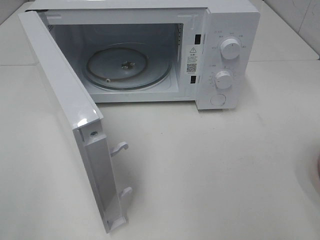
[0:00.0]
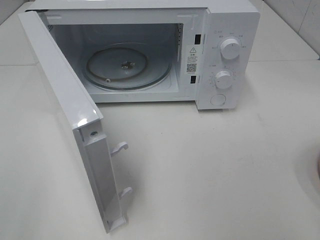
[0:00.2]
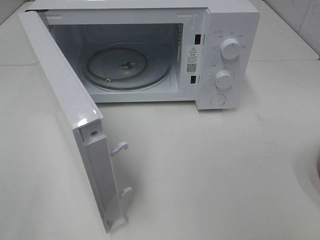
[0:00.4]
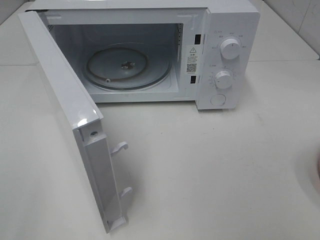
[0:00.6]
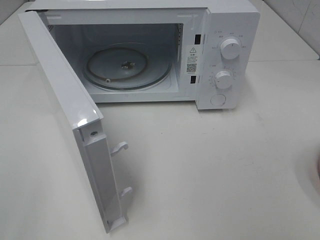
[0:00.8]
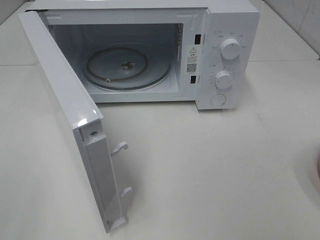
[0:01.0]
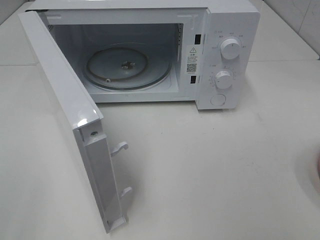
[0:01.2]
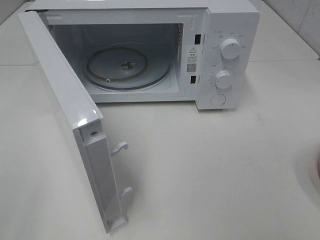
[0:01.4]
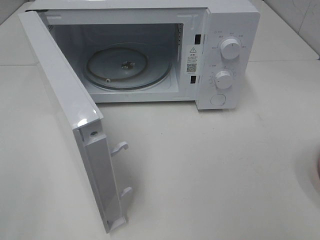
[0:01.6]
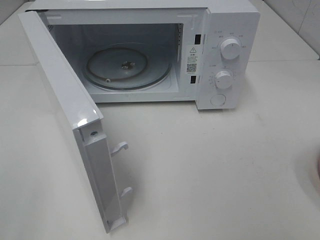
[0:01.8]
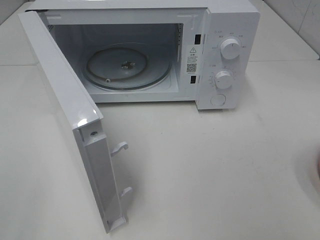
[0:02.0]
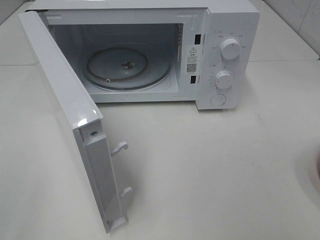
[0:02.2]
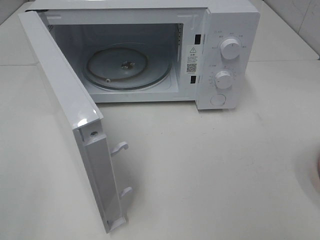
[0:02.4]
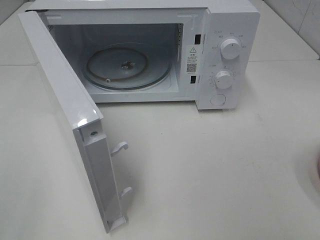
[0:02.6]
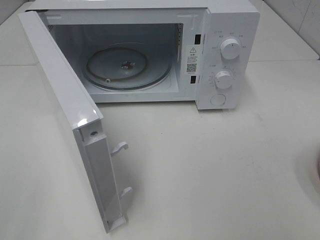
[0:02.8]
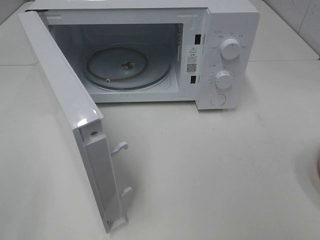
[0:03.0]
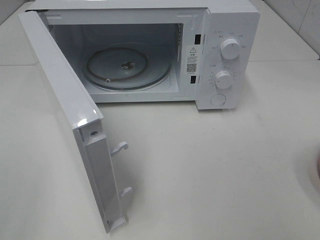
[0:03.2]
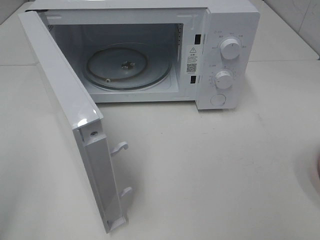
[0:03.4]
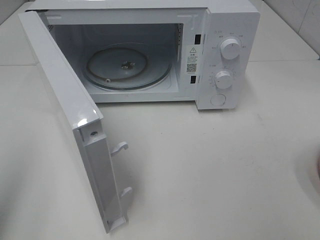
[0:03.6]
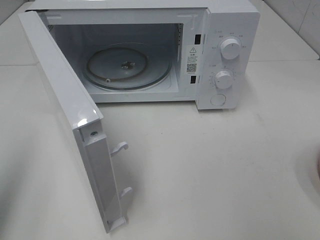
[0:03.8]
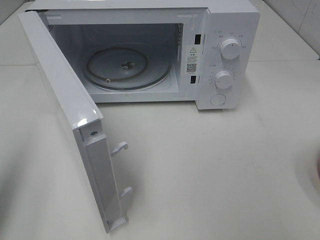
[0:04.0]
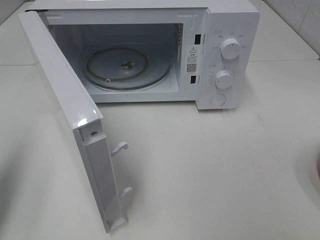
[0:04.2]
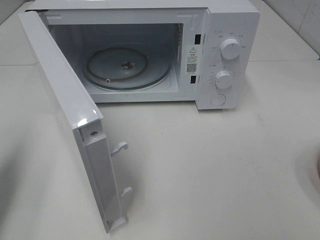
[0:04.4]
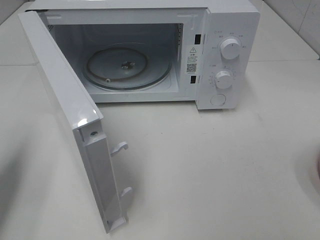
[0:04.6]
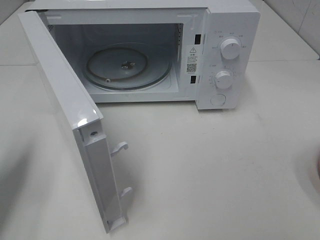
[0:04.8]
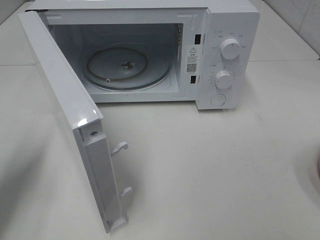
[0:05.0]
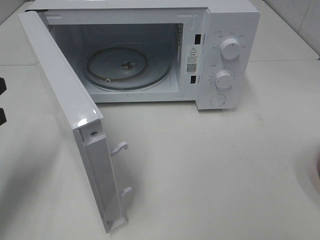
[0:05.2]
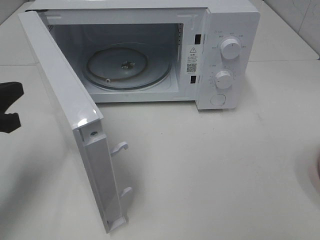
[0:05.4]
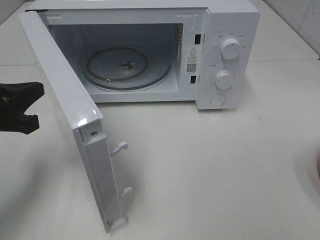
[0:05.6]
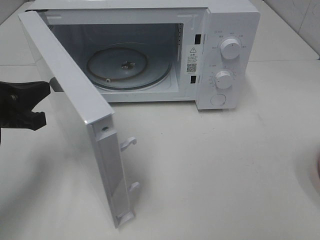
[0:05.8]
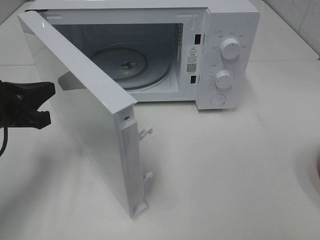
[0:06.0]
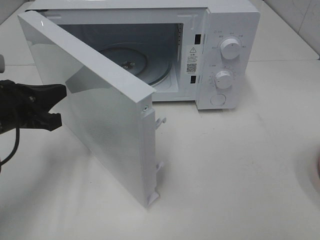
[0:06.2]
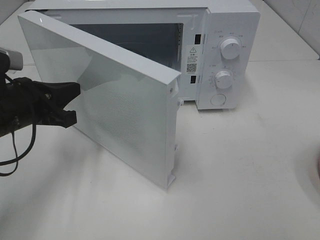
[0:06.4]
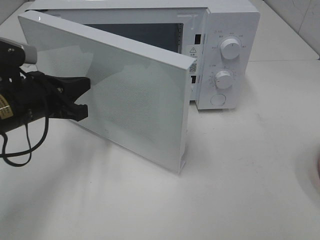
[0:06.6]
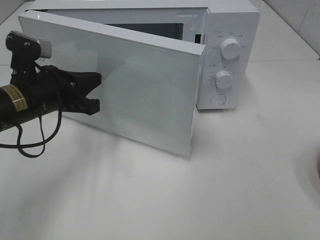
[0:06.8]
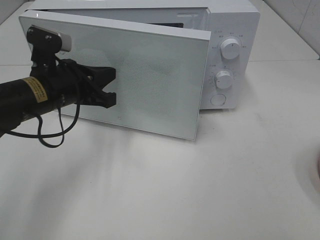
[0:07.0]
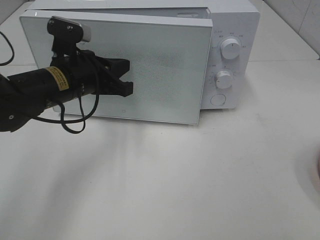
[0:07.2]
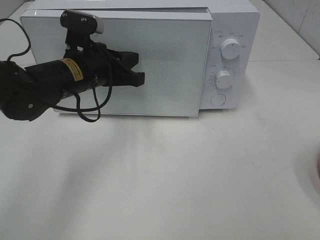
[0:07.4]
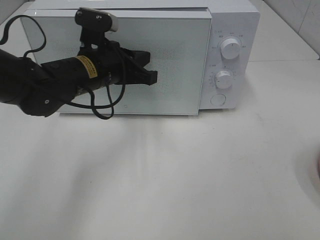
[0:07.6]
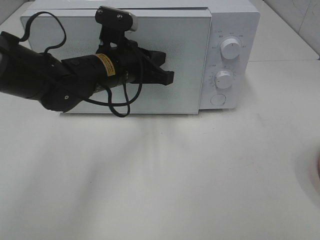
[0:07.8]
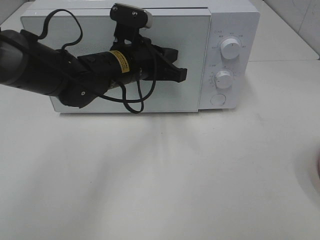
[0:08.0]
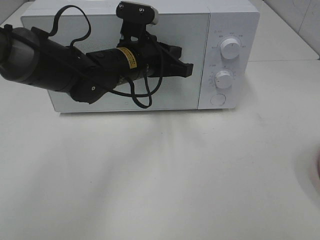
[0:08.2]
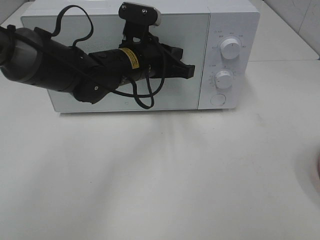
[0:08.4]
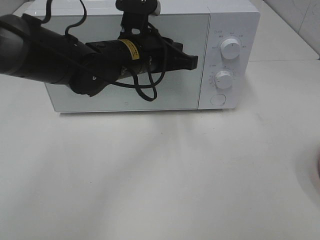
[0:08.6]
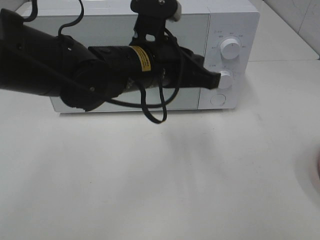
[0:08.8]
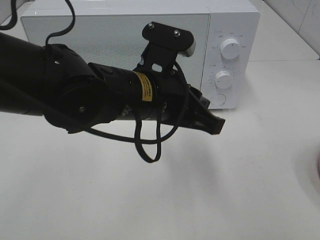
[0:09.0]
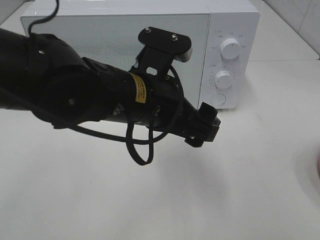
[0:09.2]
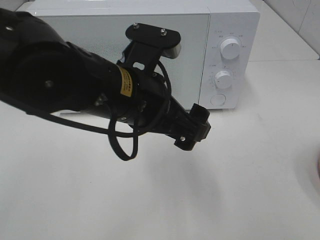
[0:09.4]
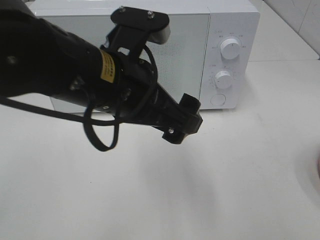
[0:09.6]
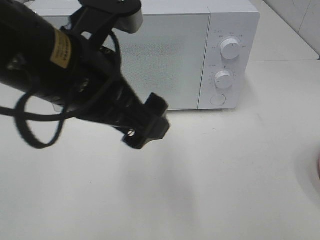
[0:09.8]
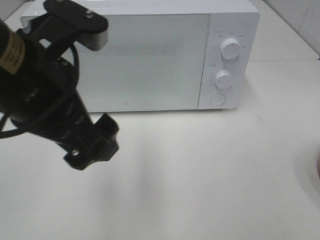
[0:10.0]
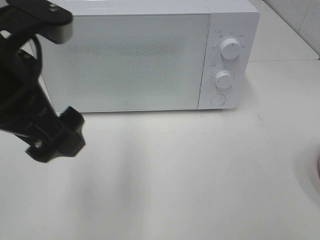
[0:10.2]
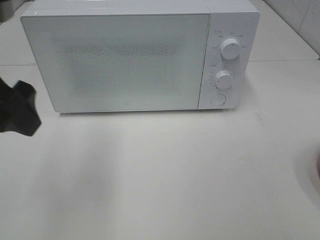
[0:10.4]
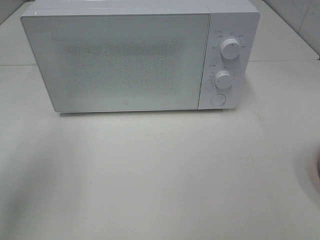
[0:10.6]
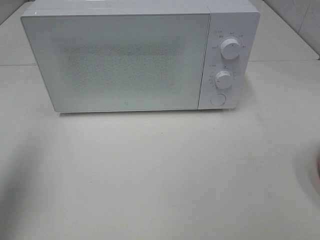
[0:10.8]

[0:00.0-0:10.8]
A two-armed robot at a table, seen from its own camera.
Task of the whole recording: Heat the burger.
Step, 0:00.0 to 0:08.4: Left hand: close the microwave door.
0:01.6 to 0:03.0: The two grippers keep their place.
0:03.0 to 0:04.6: The left gripper is displaced forward by about 20 cm, and closes.
0:04.6 to 0:06.2: The left gripper travels to the right, forward and downward by some 15 cm.
0:06.2 to 0:07.8: The left gripper goes about 20 cm to the right and forward.
0:07.8 to 0:09.2: The left gripper shifts about 10 cm backward, and opens its fingers.
0:09.2 to 0:10.8: The left gripper shifts roughly 30 cm to the left and upward.

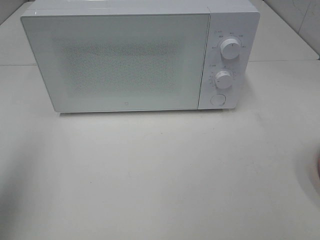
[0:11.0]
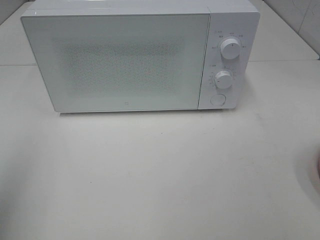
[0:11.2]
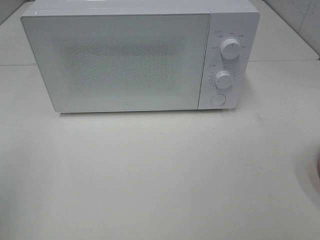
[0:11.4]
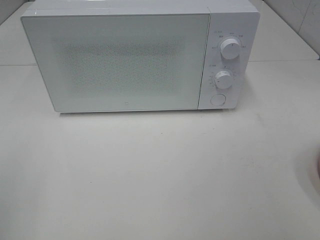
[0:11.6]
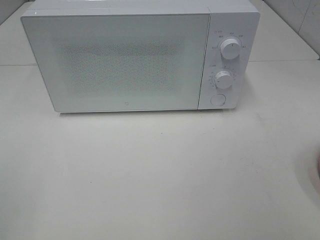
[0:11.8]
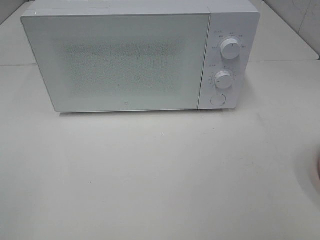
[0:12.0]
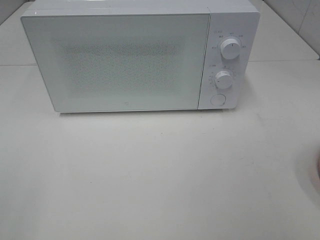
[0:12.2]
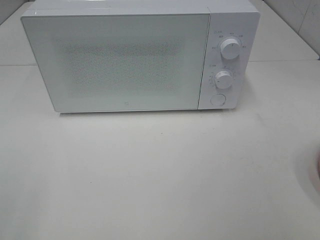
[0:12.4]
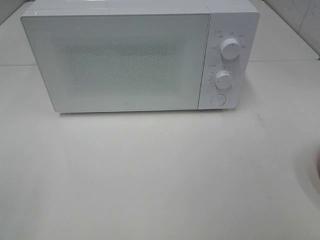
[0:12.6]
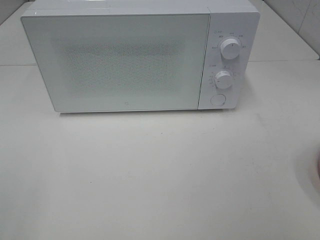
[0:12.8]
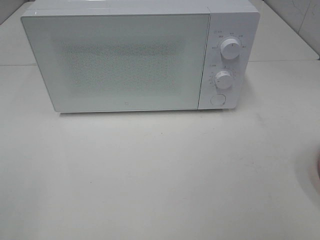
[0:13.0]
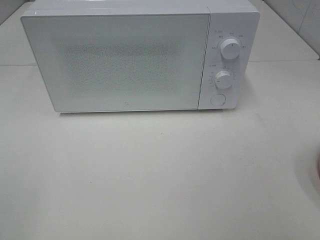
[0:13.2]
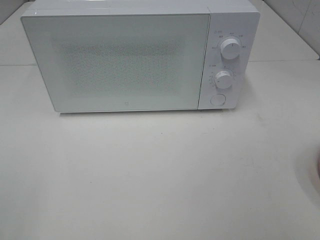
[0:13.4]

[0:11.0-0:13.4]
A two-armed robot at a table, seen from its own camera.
Task of the whole recording: Heat the burger.
0:11.0 to 0:12.2: The left gripper is displaced backward and downward by approximately 15 cm.
0:12.2 to 0:13.4: Neither gripper changes place.

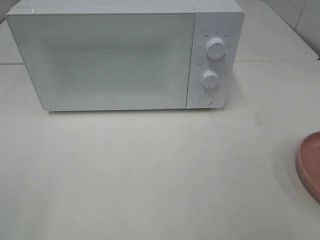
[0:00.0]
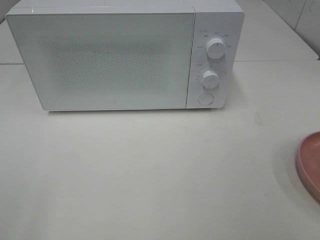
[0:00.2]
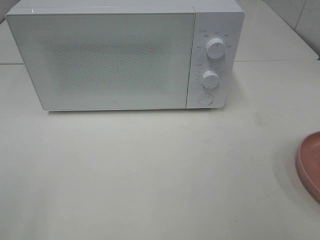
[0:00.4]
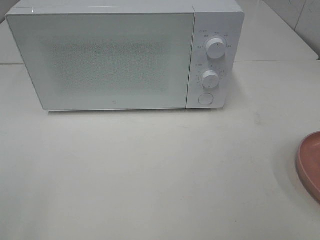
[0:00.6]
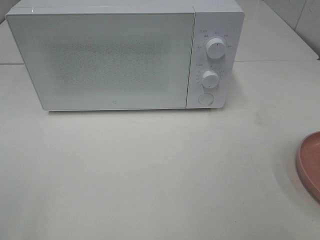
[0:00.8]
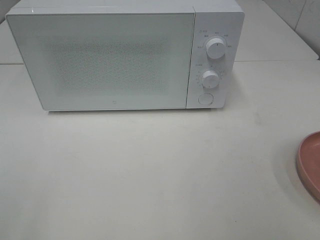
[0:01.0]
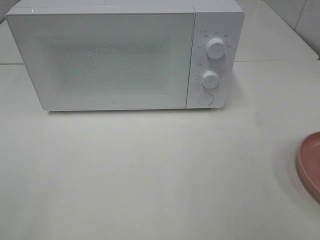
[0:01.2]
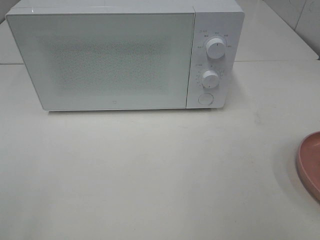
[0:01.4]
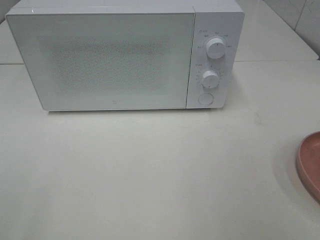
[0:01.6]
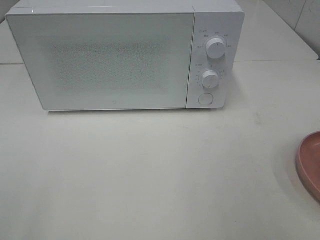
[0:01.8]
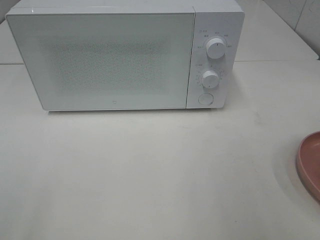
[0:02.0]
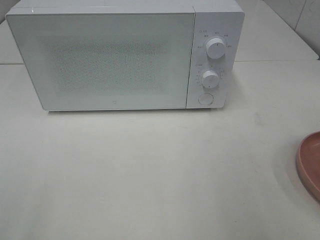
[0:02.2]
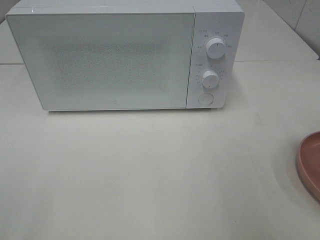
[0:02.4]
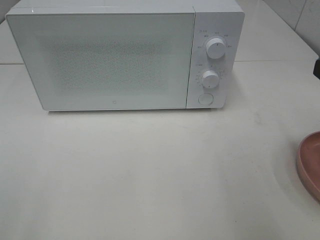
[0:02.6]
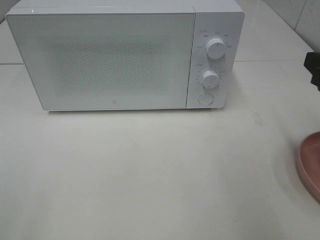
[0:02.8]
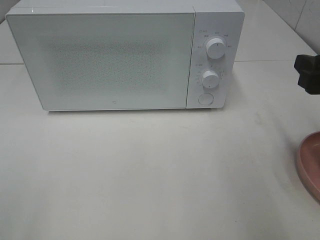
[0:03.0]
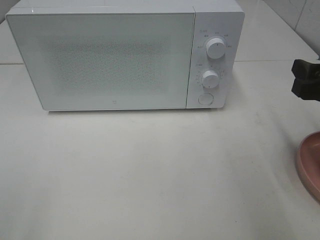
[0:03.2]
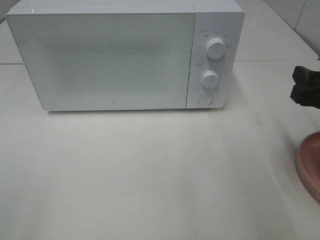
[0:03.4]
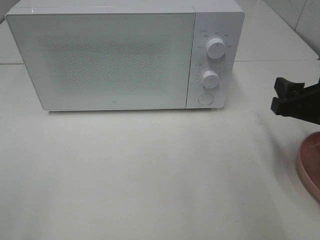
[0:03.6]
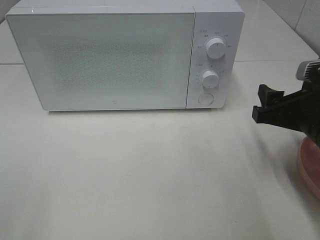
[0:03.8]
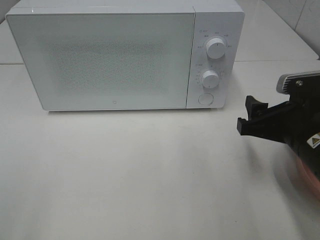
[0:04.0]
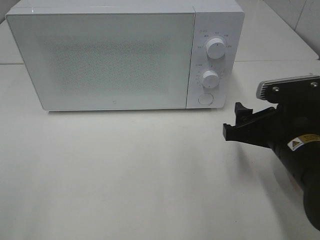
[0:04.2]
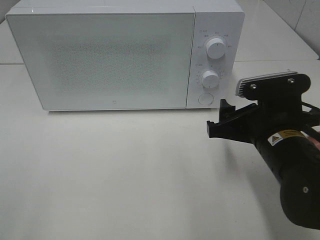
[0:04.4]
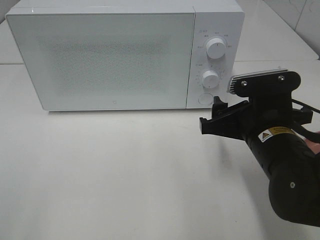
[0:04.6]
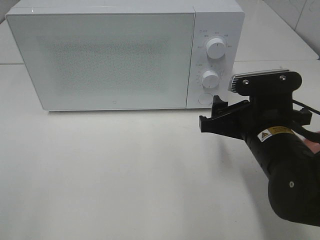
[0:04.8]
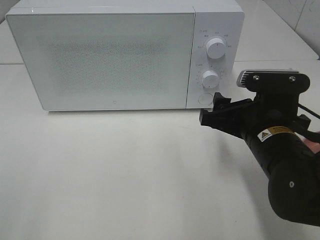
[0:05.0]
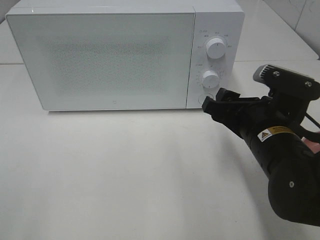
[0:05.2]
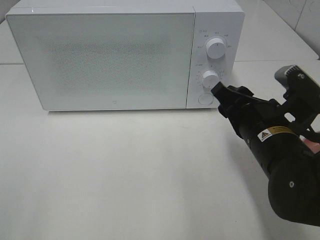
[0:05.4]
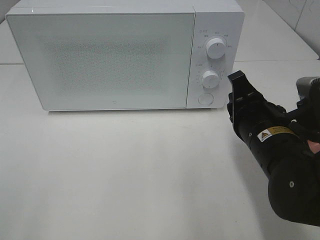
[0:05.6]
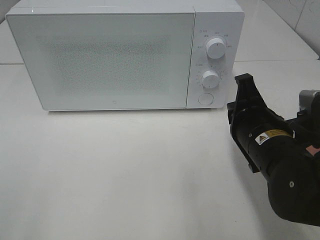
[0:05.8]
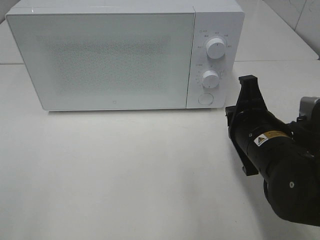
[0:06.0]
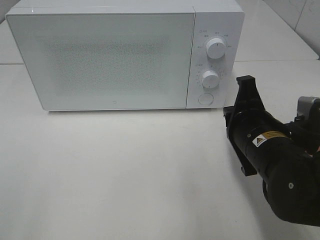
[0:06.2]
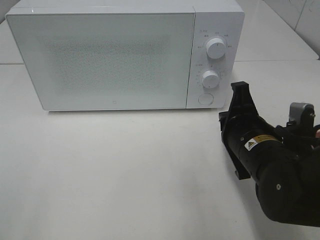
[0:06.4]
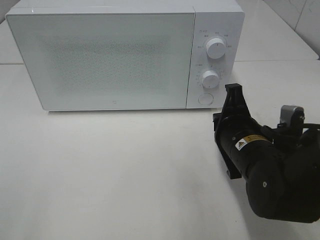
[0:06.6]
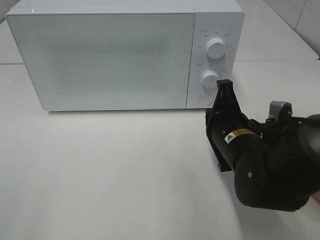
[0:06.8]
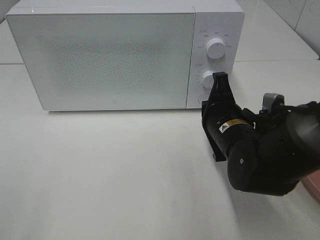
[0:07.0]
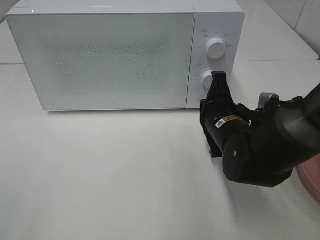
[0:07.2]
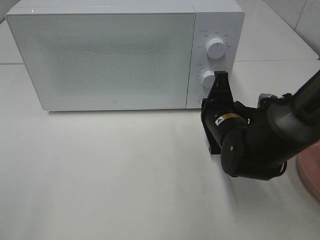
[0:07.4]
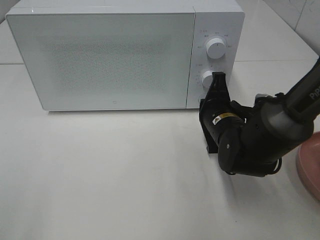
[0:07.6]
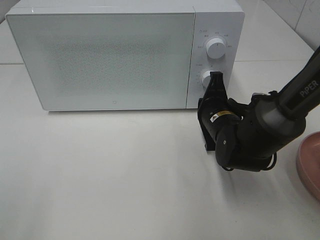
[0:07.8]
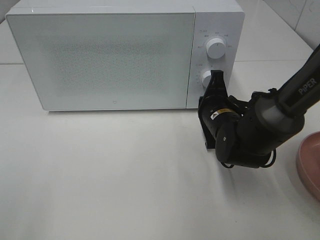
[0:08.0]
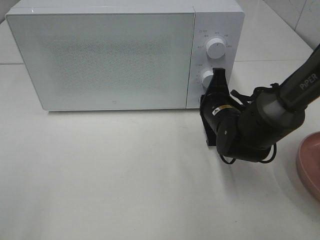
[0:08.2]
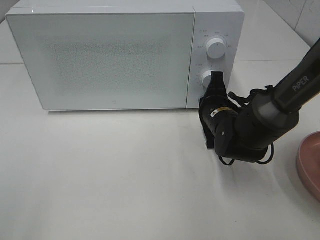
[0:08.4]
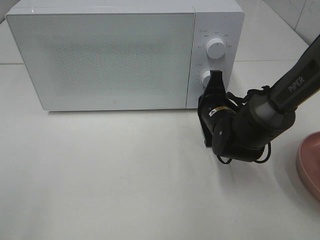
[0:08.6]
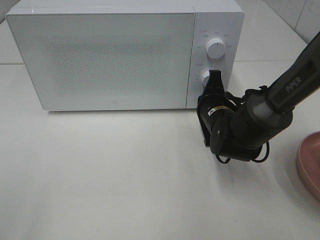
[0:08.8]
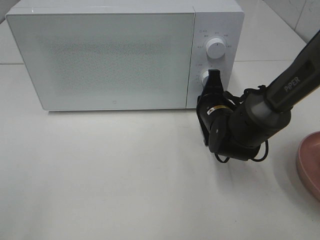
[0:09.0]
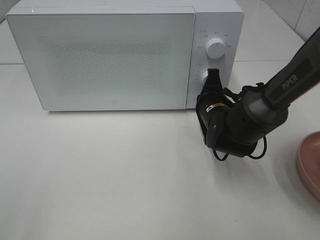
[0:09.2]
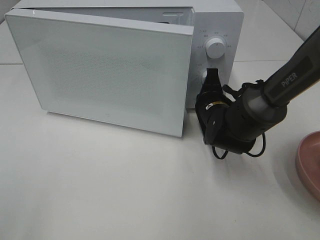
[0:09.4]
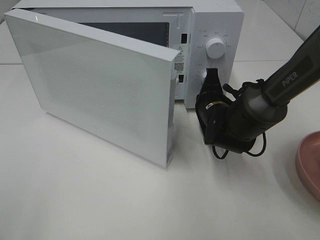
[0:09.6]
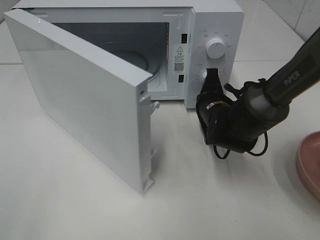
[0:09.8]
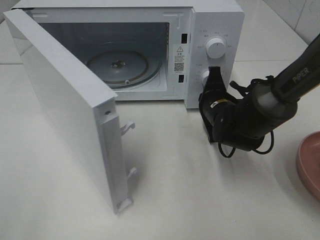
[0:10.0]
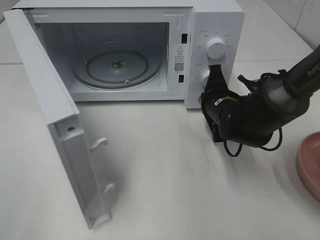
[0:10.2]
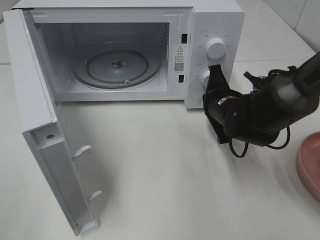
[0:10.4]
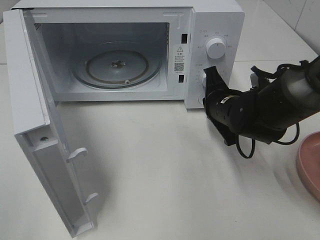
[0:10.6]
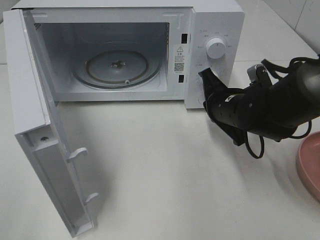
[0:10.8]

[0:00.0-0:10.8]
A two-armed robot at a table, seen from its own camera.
Task of the whole recording: Heat the burger.
Step, 0:00.0 to 0:10.4: Right hand: press the switch.
0:01.6 to 0:03.0: The right gripper travels forward and downward by approximately 15 cm.
0:03.0 to 0:04.6: The right gripper is displaced to the left and downward by roughly 15 cm.
0:04.6 to 0:06.2: The right gripper closes up.
0:06.2 to 0:07.8: The right gripper shifts about 10 cm forward and downward.
0:07.8 to 0:09.2: The grippers stay close to where they were, moving slightly.
0:09.2 to 0:10.8: The right gripper ends up some 5 cm from where it was.
